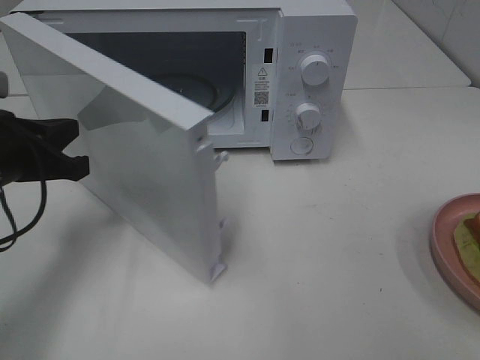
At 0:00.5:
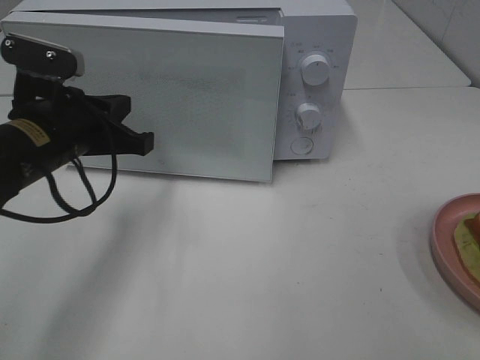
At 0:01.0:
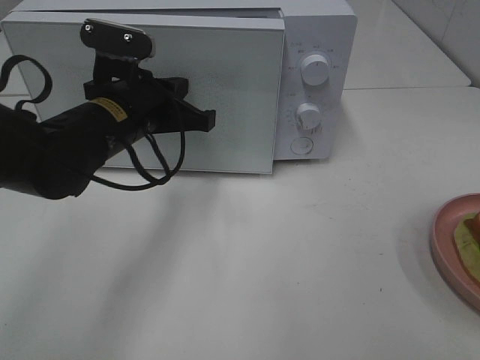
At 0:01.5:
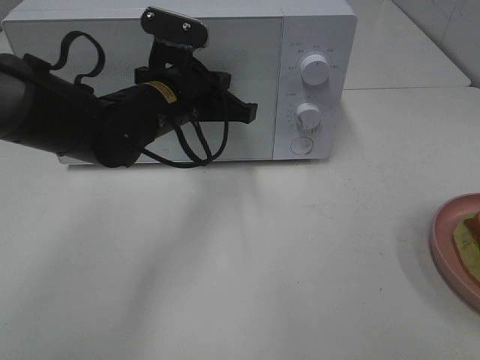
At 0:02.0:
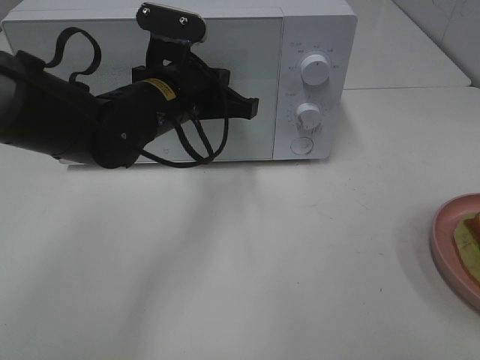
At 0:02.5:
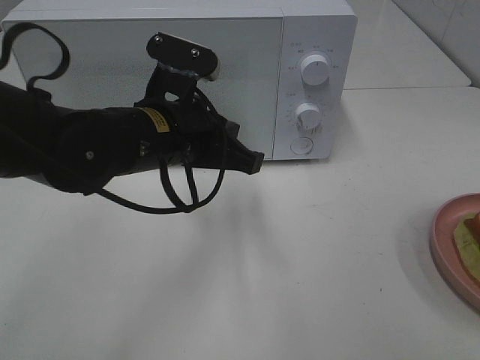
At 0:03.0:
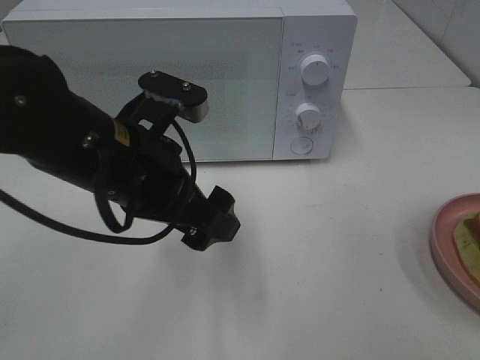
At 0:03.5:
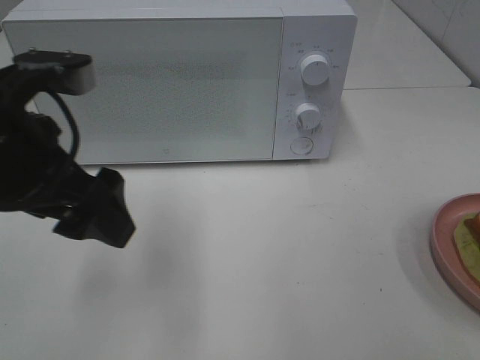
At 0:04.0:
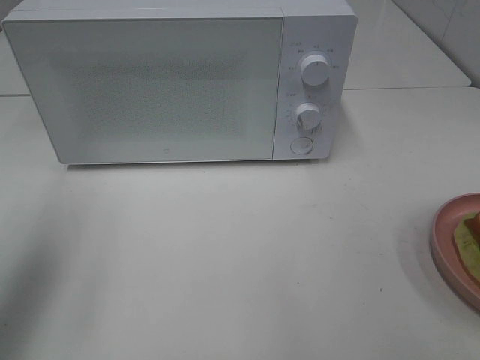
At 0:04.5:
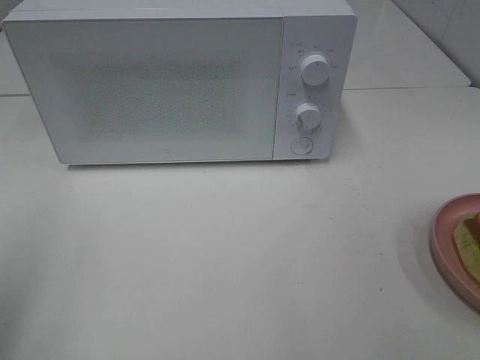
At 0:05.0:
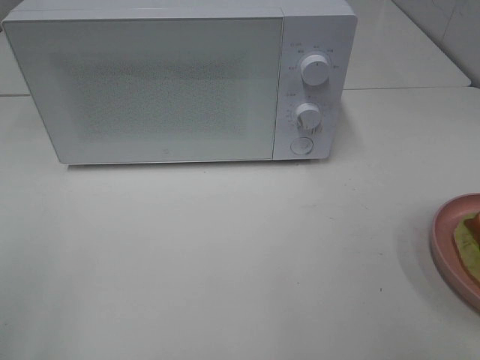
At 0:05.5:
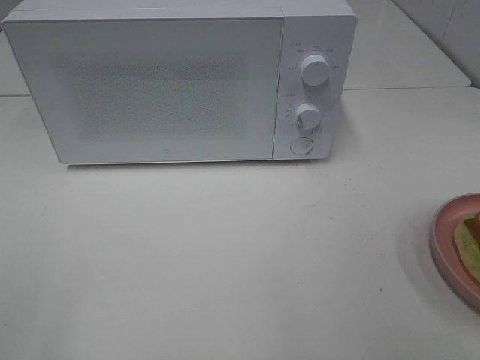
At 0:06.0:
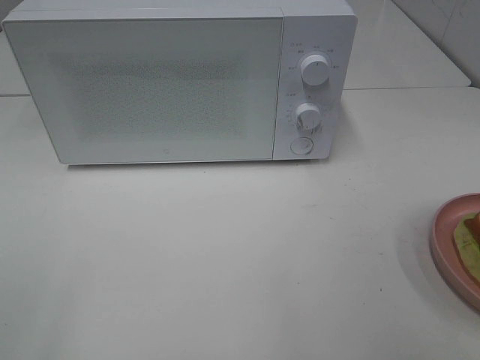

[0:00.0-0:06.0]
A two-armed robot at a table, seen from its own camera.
Task of the whole recording: Heat Sandwich.
Step, 0:00.0 to 0:02.5: Left hand: close the microwave door.
0:00.0 to 0:02.0: The left gripper heads to the right and forward, covering approximately 20 cm.
0:02.0 to 0:04.0: The left gripper moves to the left, backward and upward, roughly 30 cm, and opens its fingers.
0:04.0 to 0:06.0: The left gripper goes roughly 20 cm backward.
